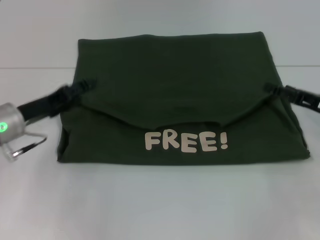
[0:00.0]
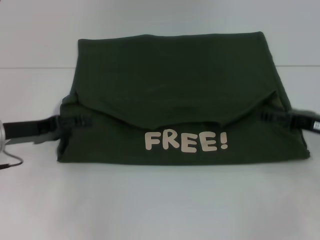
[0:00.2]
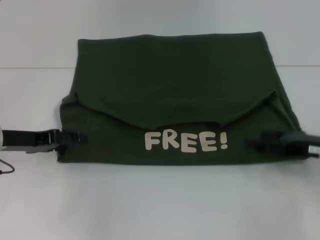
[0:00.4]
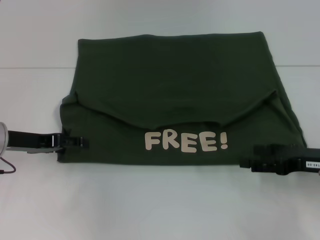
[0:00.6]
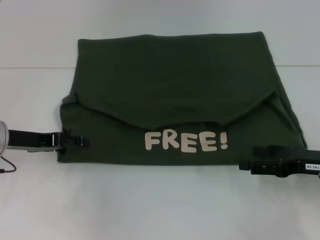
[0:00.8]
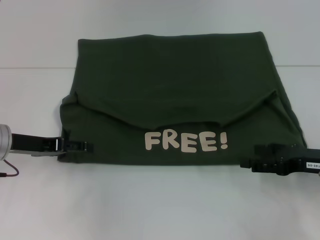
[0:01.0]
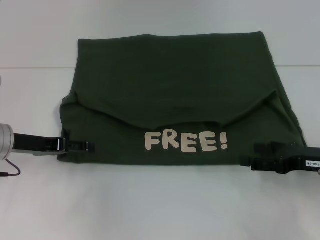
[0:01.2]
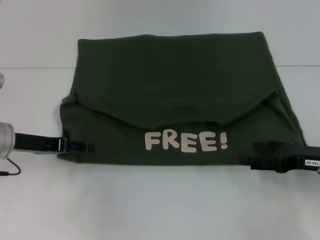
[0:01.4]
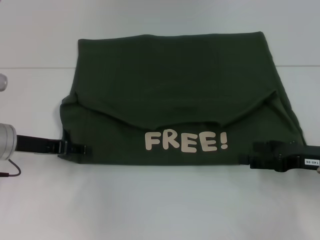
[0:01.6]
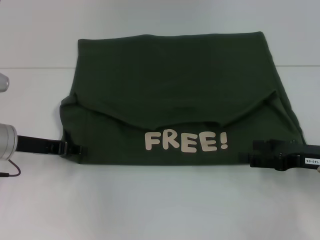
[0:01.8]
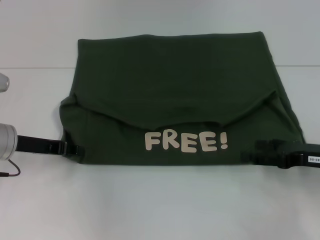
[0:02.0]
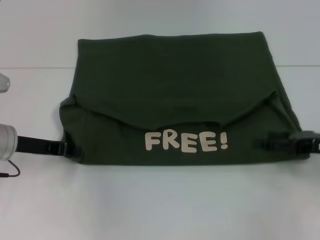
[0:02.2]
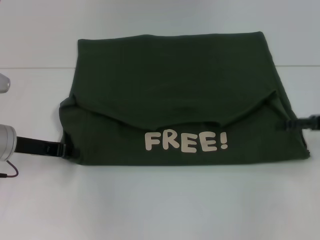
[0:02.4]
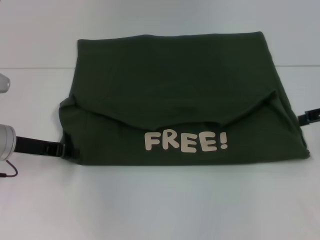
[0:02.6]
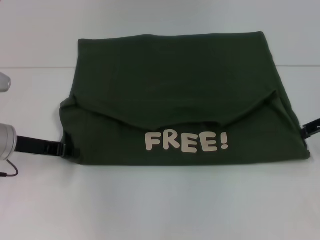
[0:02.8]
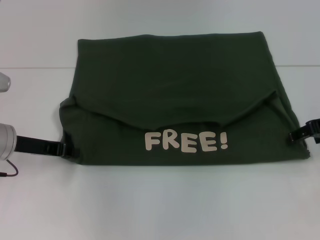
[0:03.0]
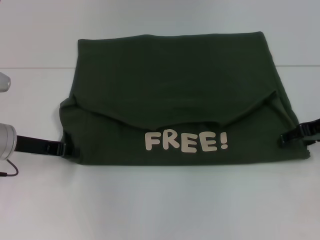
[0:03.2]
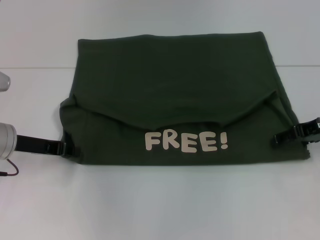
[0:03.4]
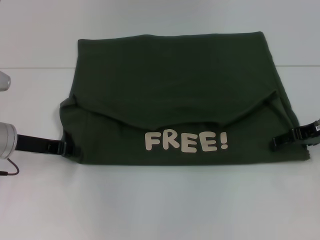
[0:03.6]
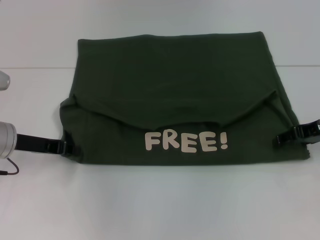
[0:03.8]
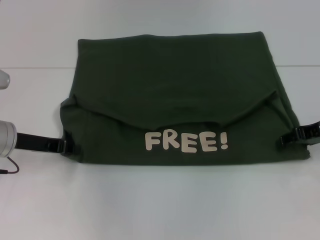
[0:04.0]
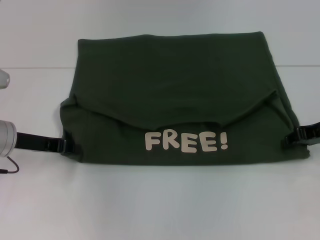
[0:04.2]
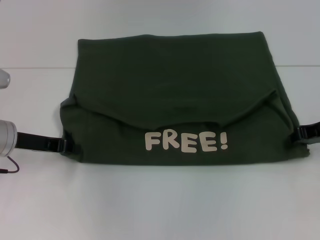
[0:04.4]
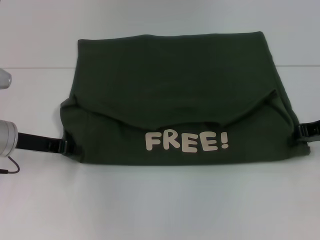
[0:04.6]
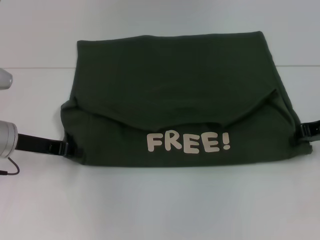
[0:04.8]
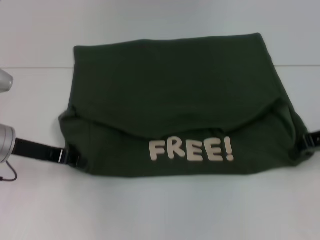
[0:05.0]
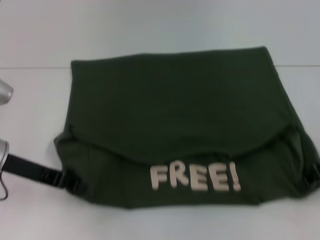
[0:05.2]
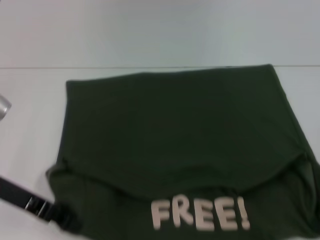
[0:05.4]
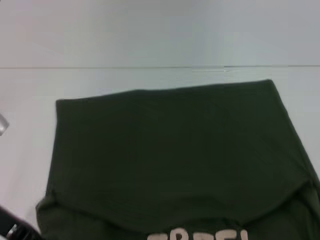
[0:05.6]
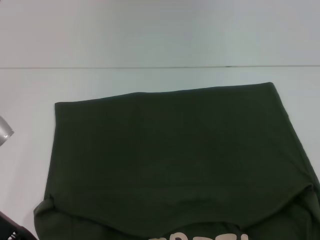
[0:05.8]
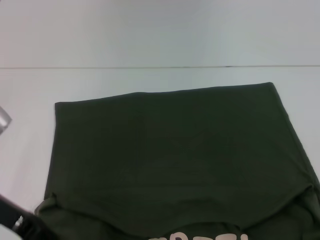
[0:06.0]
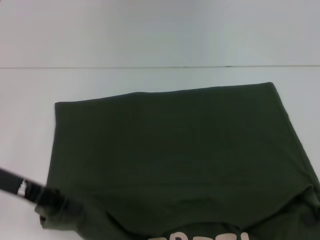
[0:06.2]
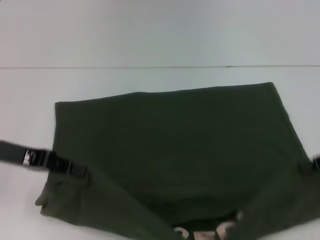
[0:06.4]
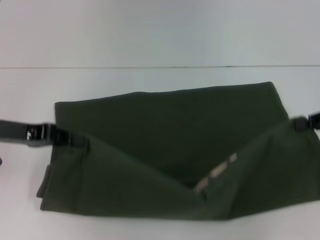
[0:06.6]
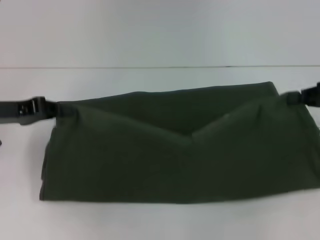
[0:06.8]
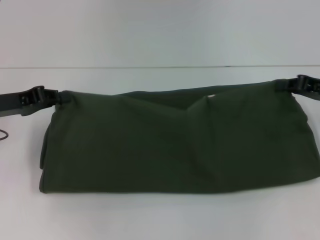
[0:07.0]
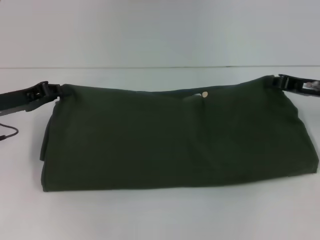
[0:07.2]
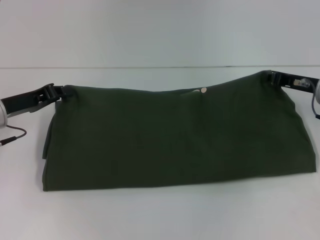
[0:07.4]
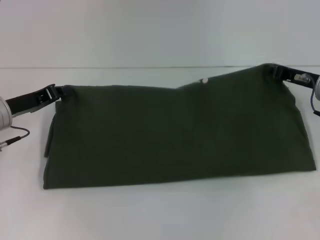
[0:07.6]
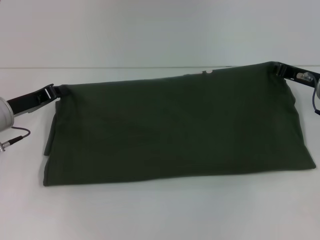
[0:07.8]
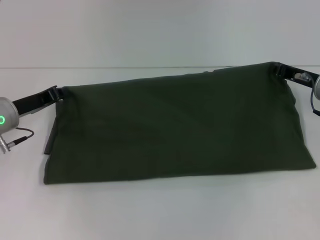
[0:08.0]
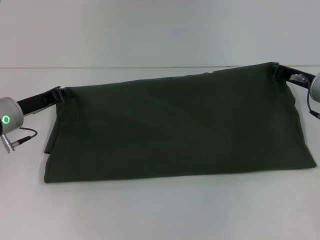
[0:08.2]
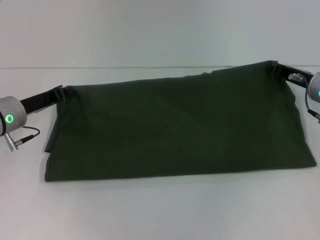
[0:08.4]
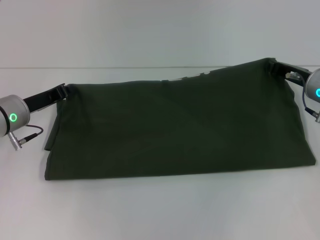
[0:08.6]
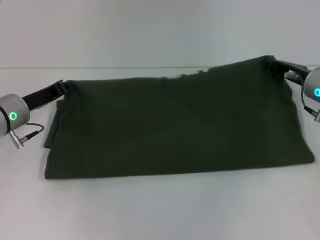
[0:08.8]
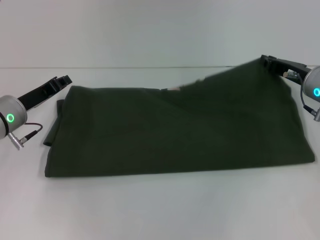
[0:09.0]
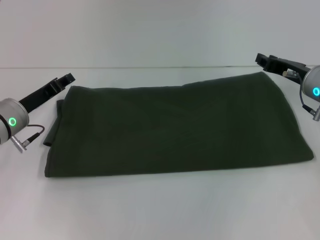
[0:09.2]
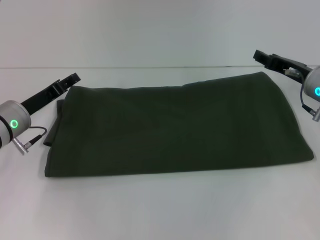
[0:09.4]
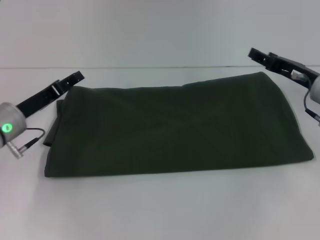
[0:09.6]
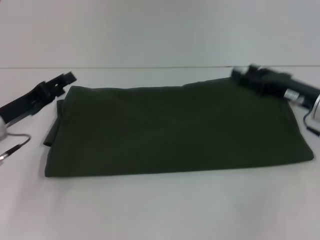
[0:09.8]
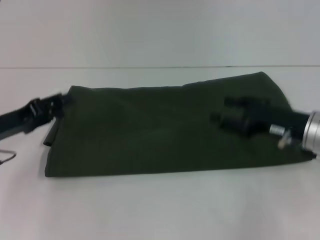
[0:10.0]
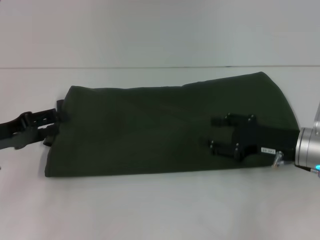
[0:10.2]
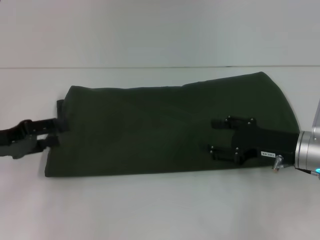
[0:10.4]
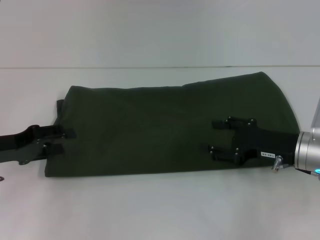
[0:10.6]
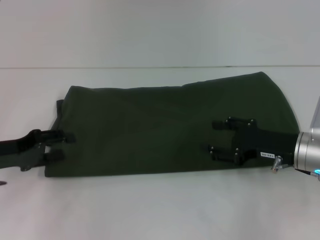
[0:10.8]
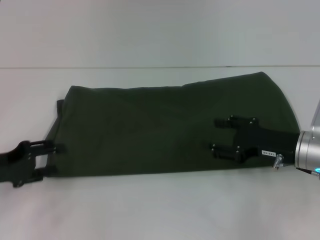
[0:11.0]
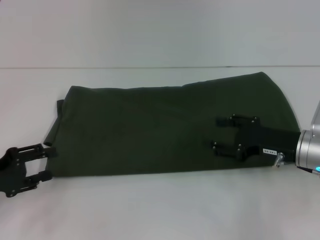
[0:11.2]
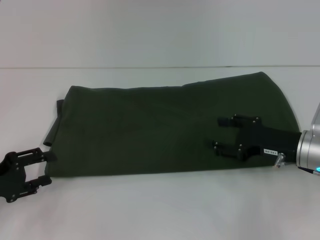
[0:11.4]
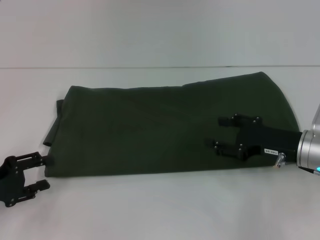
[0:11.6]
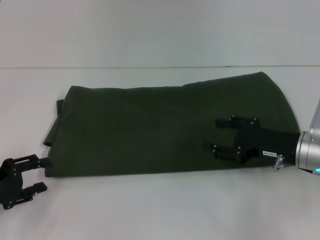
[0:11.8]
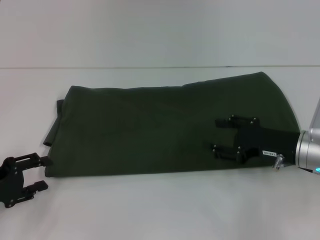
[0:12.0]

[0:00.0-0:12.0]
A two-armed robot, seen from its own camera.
Step, 0:00.0 to 0:05.6: Pull the clothes with your left hand.
Step, 0:00.0 to 0:05.6: Pull the clothes with your right hand.
Step, 0:05.8 to 0:09.0: Fold the clothes with your right hand.
0:01.6 to 0:03.0: The left gripper closes, while the right gripper heads upward and forward, covering roughly 10 cm.
0:04.4 to 0:06.0: The two grippers go some 10 cm backward.
0:06.0 to 0:07.6: The right gripper moves forward, approximately 10 cm, while the left gripper moves forward, roughly 10 cm.
0:07.6 to 0:09.0: The grippers move only a little.
0:09.0 to 0:10.4: The right gripper heads backward, covering about 10 cm, and opens its fingers. Meanwhile the left gripper heads backward and to the left, covering approximately 10 cm, and opens its fingers.
0:10.4 to 0:12.0: The left gripper moves downward, about 5 cm.

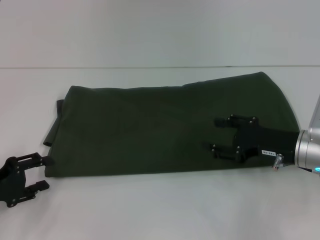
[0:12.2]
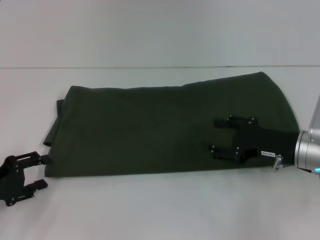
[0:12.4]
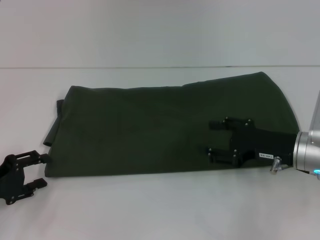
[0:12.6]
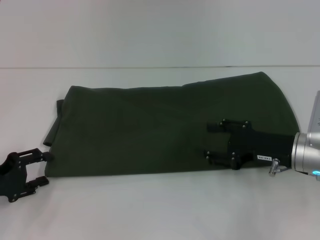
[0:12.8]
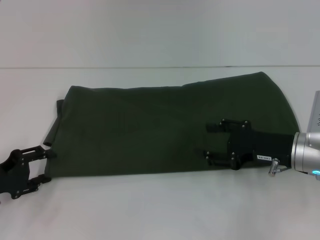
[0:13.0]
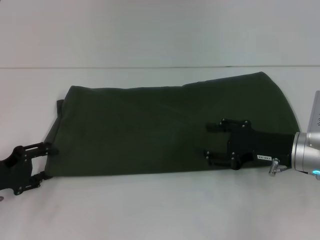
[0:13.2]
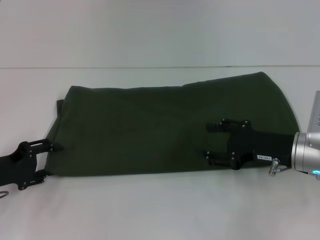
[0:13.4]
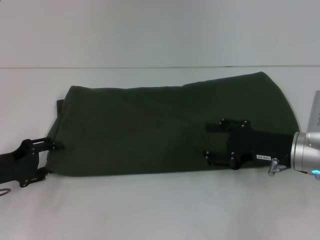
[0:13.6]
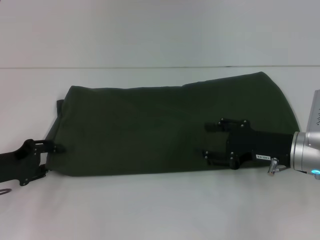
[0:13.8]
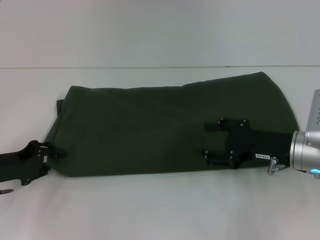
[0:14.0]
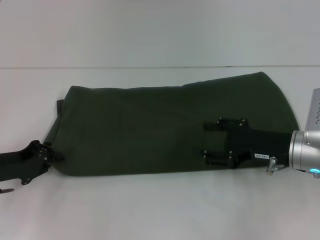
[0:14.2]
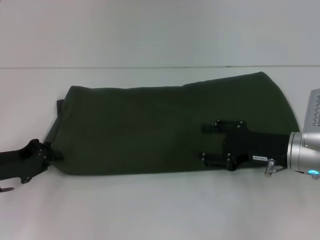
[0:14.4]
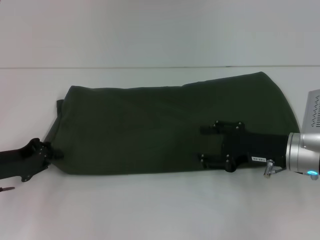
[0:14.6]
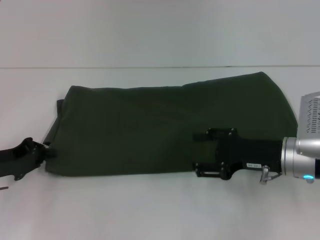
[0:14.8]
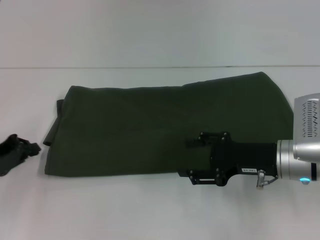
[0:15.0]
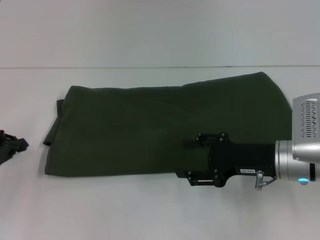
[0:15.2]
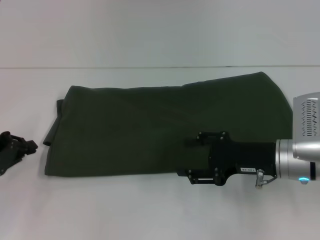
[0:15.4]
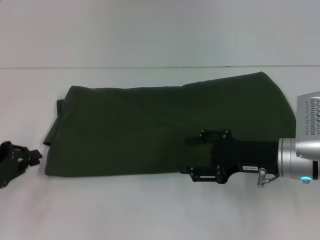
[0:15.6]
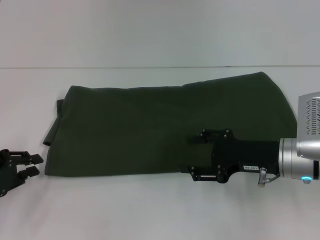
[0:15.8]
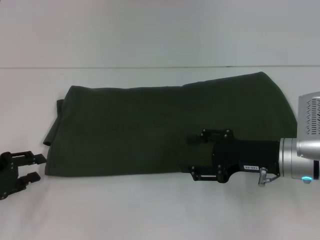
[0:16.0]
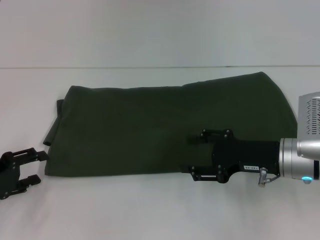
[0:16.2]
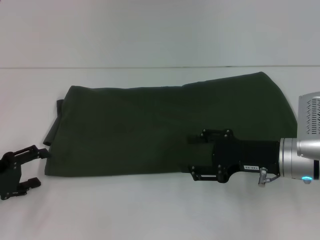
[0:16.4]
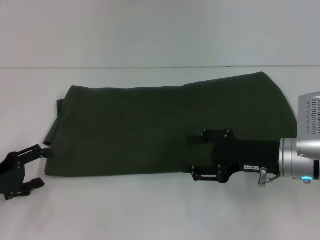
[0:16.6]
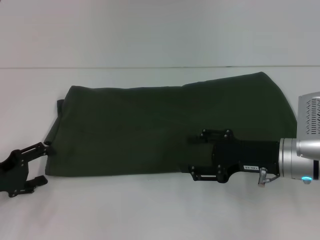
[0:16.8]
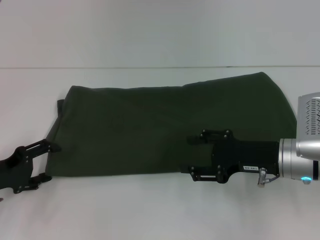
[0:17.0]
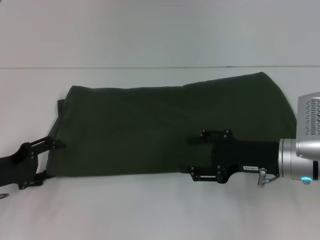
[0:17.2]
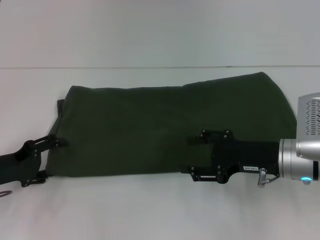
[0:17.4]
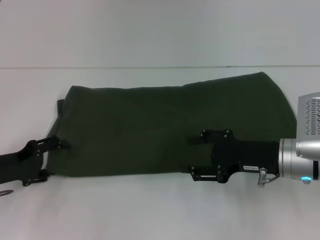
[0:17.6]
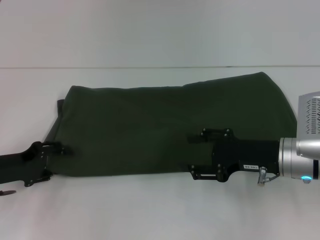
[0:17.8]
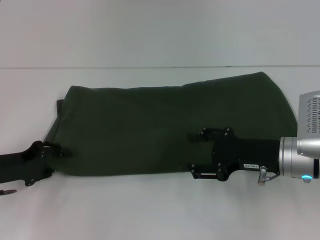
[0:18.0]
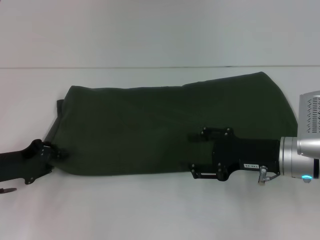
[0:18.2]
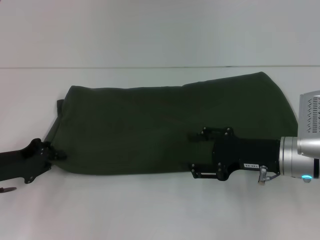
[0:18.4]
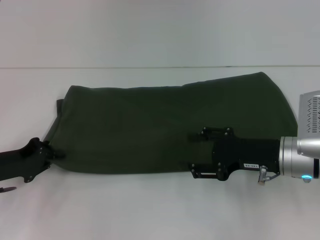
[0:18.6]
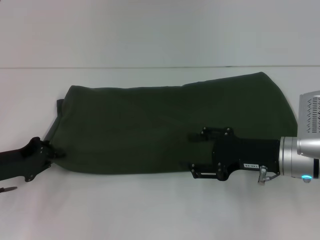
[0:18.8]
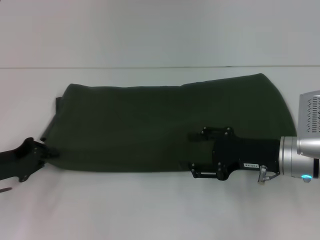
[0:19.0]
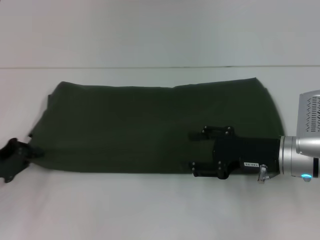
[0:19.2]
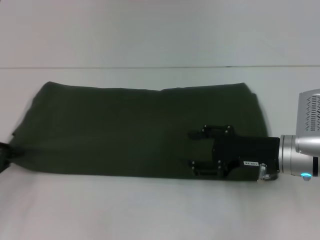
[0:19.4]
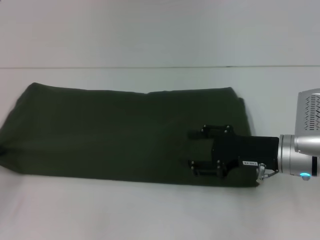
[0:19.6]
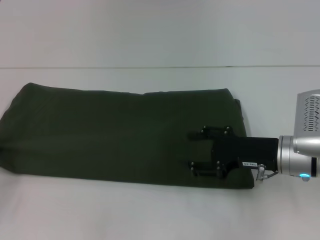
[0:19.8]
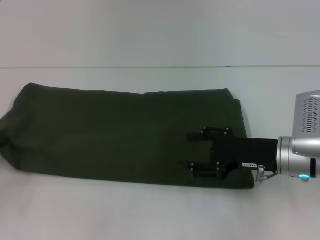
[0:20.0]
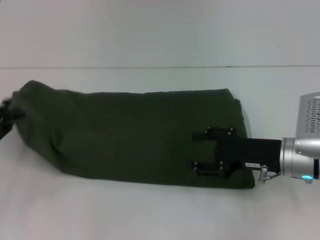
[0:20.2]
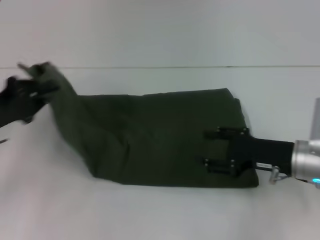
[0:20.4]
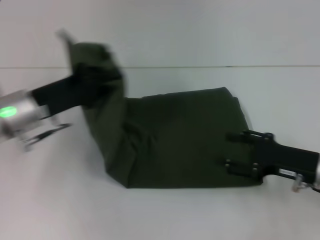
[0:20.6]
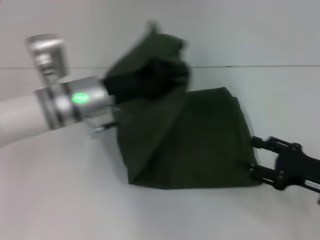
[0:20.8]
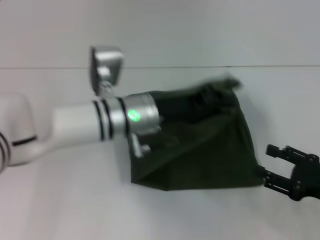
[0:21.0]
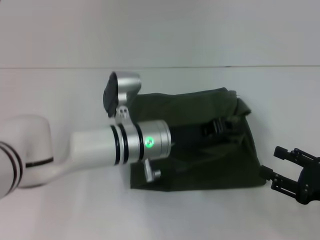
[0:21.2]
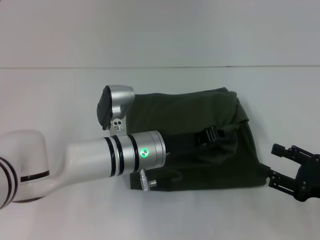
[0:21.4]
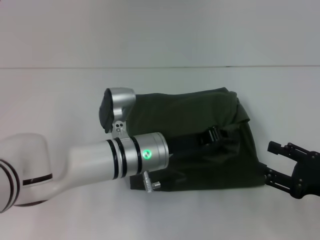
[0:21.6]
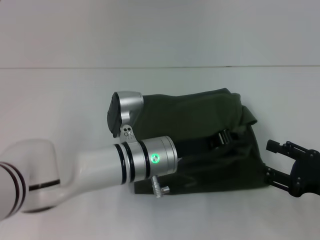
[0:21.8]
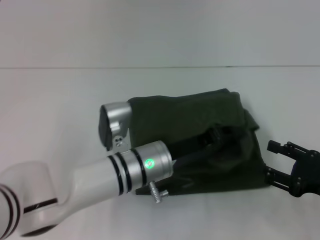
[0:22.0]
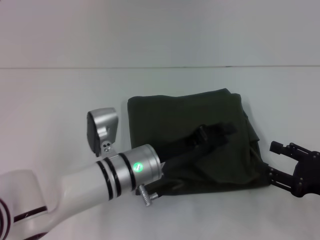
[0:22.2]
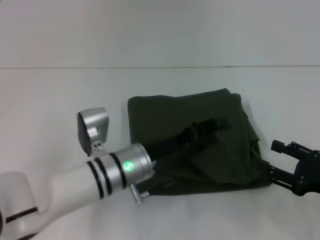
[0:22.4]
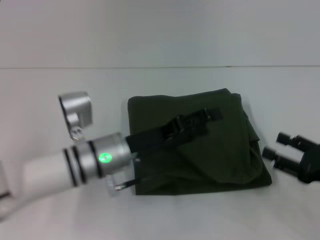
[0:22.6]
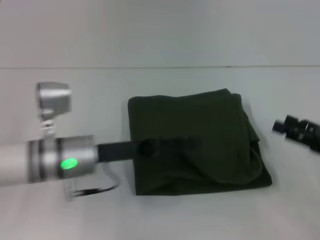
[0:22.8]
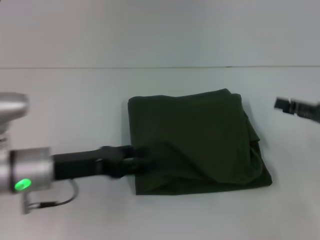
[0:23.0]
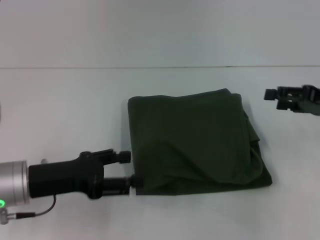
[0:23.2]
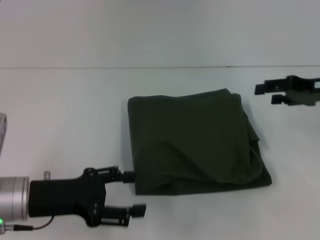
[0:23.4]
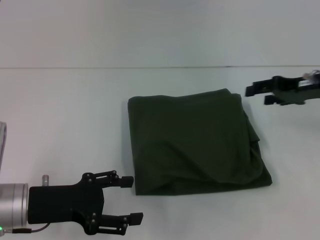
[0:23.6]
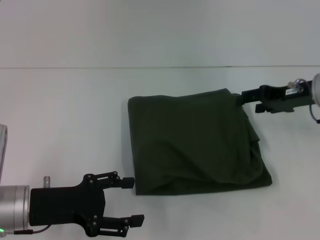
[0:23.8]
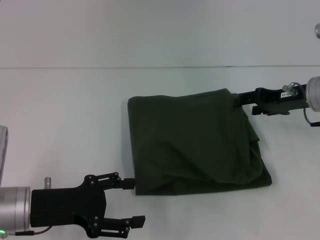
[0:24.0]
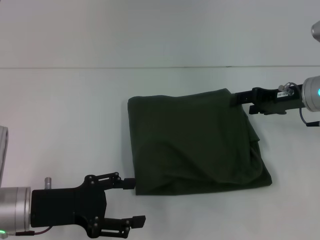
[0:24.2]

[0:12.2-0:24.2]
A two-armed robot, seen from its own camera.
Step, 0:12.2 to 0:22.0: Fold the clothes with your left hand.
0:12.2 to 0:13.8: There are only small adjustments of the grippers.
0:13.8 to 0:15.2: The left gripper closes.
0:15.2 to 0:16.6: The left gripper opens its fingers.
0:16.6 to 0:18.2: The left gripper closes up.
0:18.2 to 0:19.8: The left gripper moves to the left, approximately 10 cm, and closes up.
0:19.8 to 0:21.2: The left gripper travels to the right by roughly 35 cm. Meanwhile the right gripper moves to the right and backward, roughly 15 cm.
0:21.2 to 0:22.6: The left gripper heads to the left, covering roughly 5 cm, and opens.
0:22.6 to 0:24.2: The left gripper heads to the left and backward, covering some 15 cm; the right gripper travels forward by approximately 15 cm.
